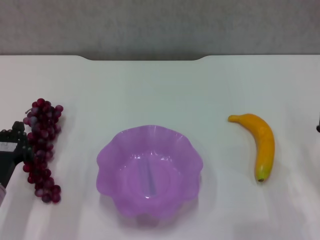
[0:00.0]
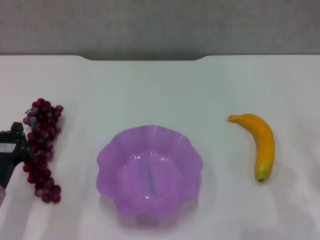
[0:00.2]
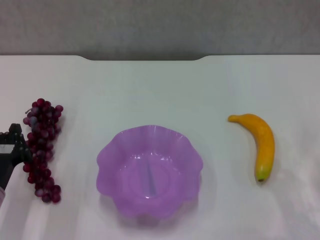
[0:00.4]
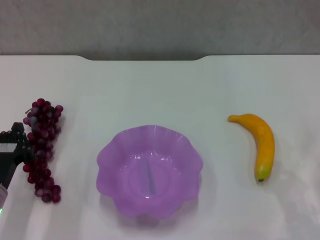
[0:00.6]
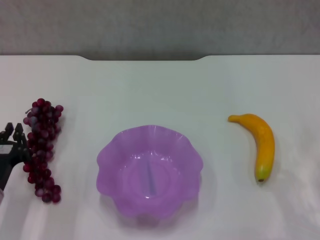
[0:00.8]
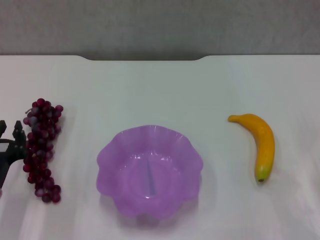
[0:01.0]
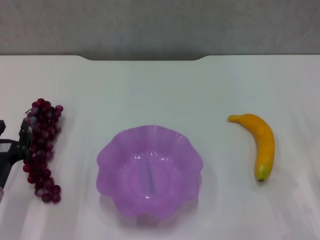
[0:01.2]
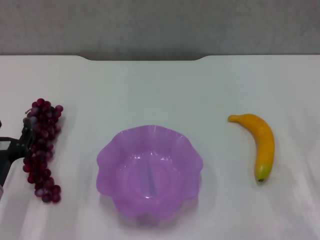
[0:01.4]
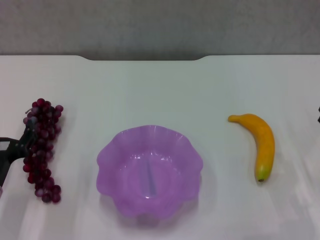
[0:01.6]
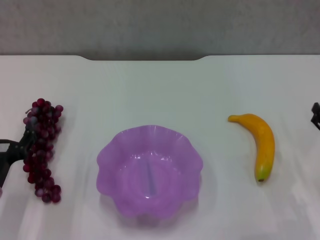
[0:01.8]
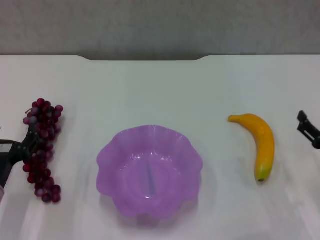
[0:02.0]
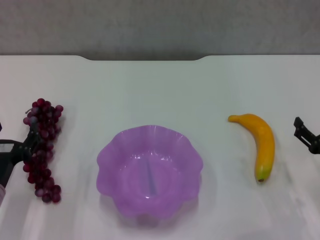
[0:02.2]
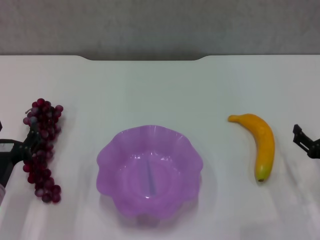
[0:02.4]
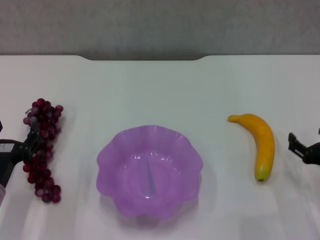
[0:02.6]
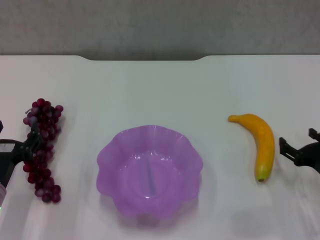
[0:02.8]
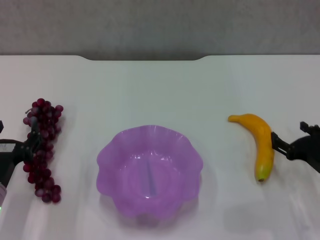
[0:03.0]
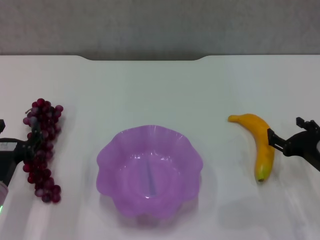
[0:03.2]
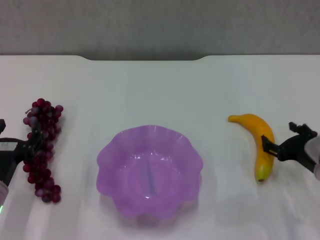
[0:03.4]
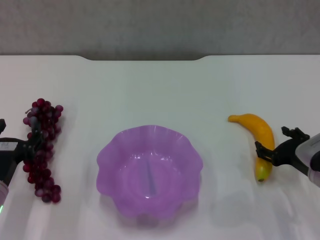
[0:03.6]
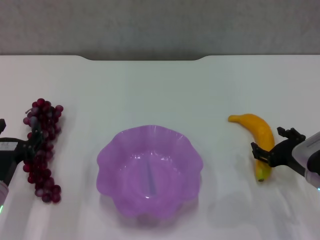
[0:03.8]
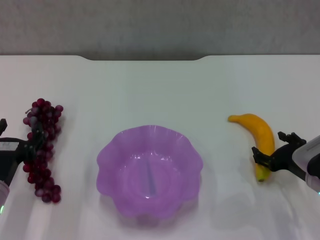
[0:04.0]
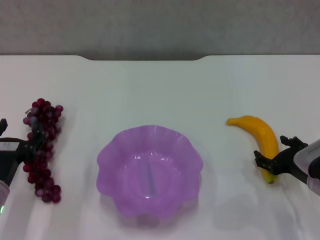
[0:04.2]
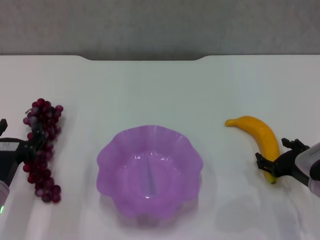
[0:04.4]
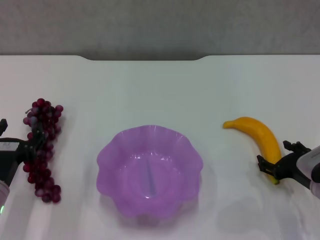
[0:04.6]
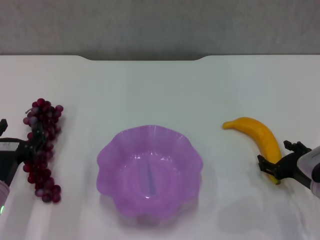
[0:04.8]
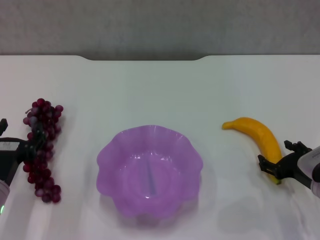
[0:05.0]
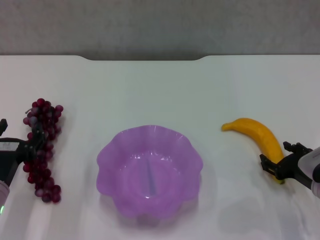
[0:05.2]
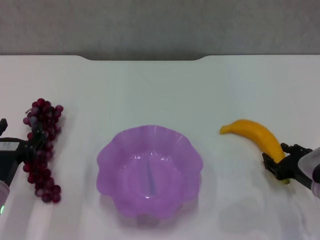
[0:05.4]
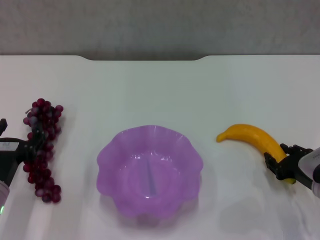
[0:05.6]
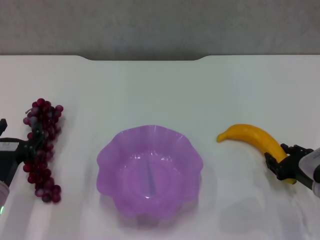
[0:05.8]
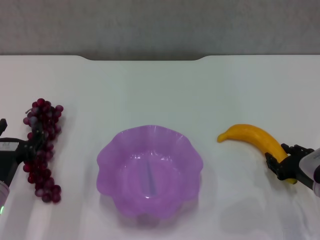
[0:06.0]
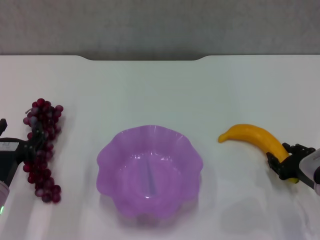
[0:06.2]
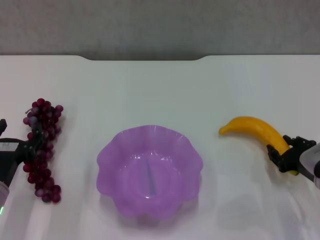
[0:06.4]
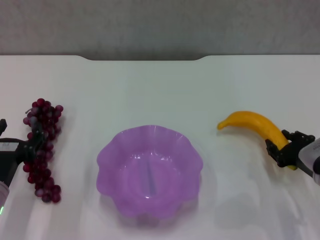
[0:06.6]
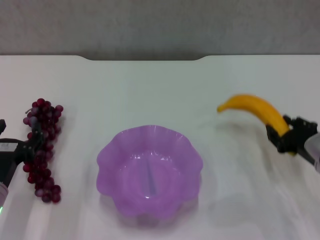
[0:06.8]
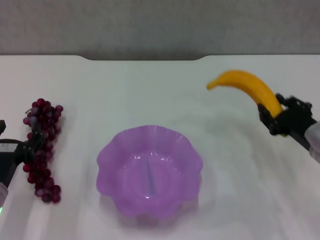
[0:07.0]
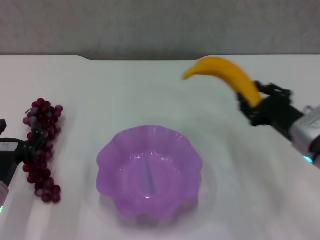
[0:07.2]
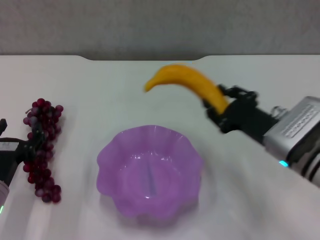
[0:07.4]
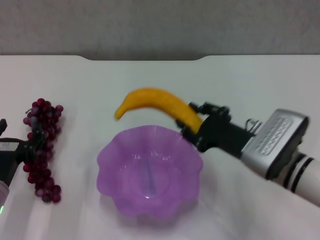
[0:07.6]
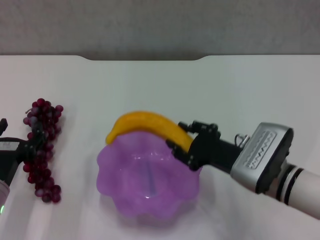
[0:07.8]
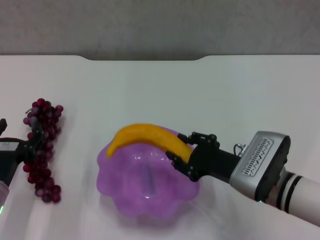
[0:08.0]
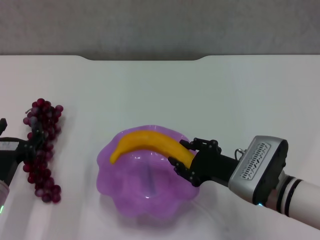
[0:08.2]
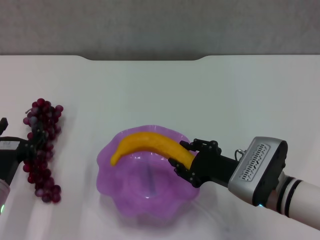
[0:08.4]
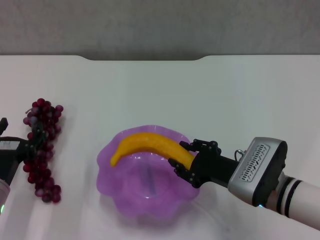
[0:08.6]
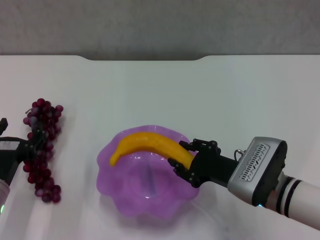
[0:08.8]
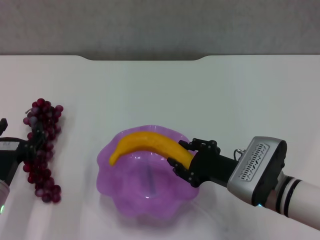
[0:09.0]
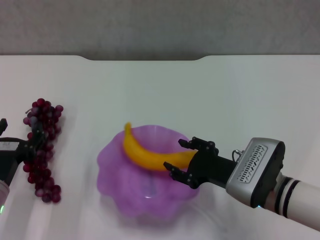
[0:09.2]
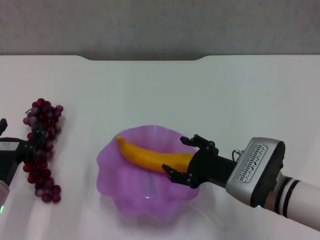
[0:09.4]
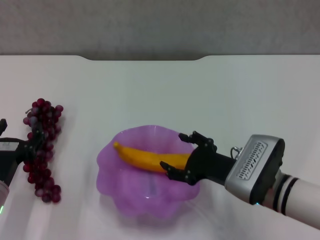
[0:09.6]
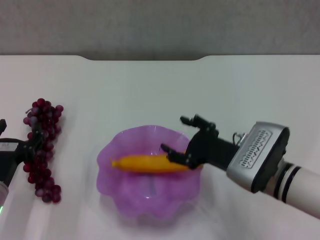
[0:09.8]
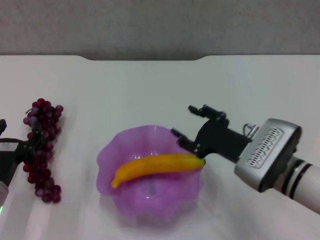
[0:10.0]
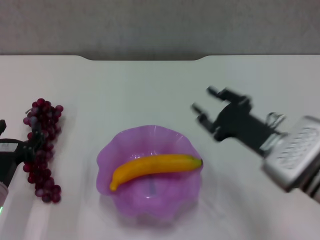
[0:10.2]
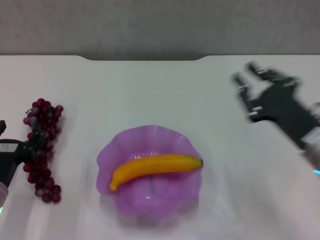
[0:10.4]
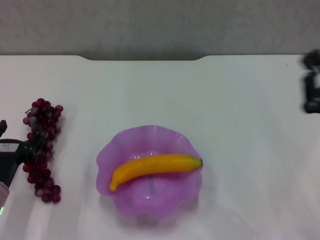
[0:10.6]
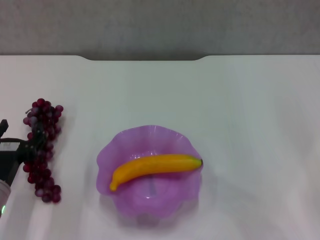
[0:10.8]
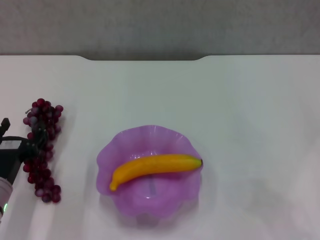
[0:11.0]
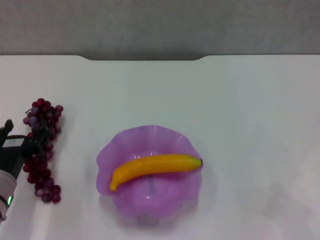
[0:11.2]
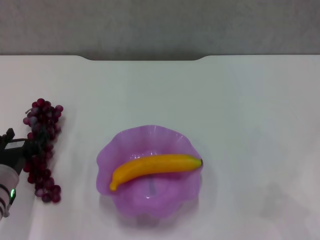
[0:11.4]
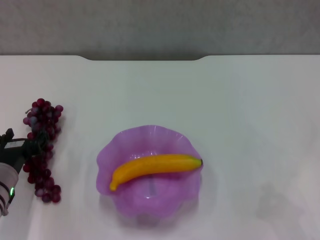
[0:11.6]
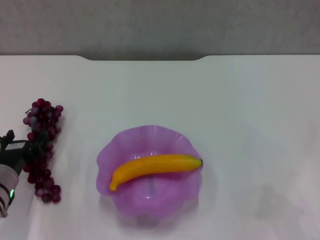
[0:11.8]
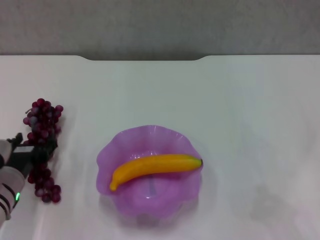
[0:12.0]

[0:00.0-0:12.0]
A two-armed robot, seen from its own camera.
Step, 0:00.0 to 0:05.8: Grasp the banana with right gripper.
Step, 0:06.0 to 0:09.8: Place the banana in the purple plate with right gripper.
0:00.0 to 0:01.6: The left gripper opens up.
0:01.6 to 0:03.0: The right gripper moves roughly 5 cm, and opens its fingers.
0:03.0 to 0:04.4: The grippers stay close to where they were, moving slightly.
0:04.4 to 0:06.0: The right gripper closes its fingers.
0:06.0 to 0:07.6: The right gripper goes roughly 15 cm to the left and upward.
0:07.6 to 0:09.0: The grippers make only small movements.
0:09.0 to 0:10.4: The right gripper shifts some 10 cm to the right and upward, and opens and closes again.
0:10.4 to 0:12.0: The right gripper is displaced to the right and backward by roughly 15 cm, and closes its fingers.

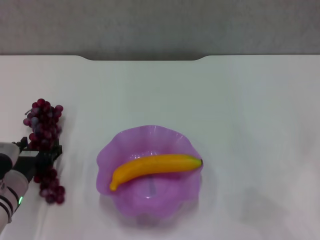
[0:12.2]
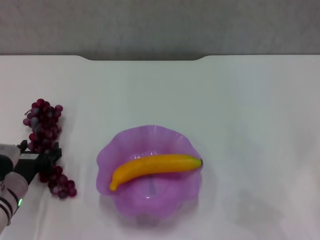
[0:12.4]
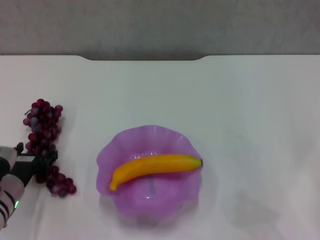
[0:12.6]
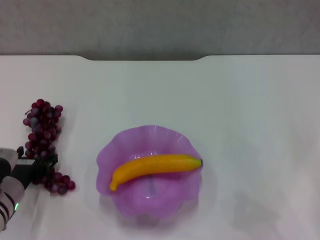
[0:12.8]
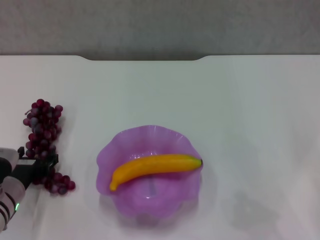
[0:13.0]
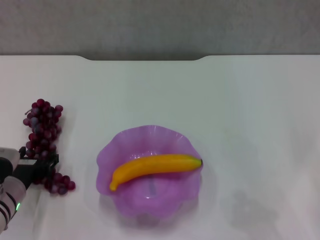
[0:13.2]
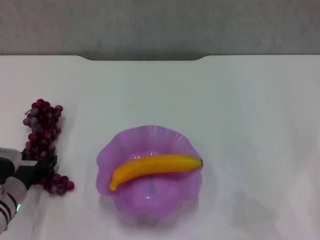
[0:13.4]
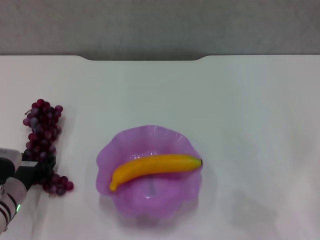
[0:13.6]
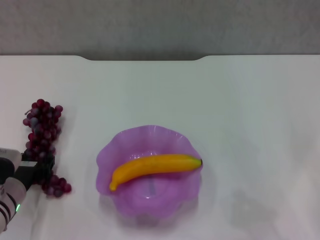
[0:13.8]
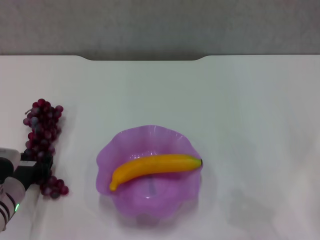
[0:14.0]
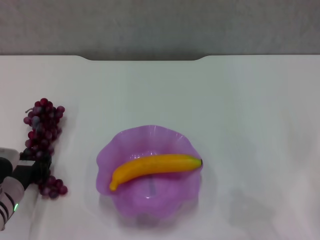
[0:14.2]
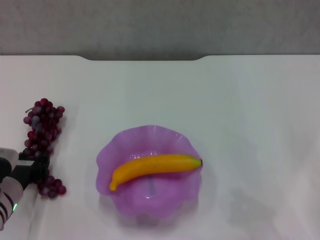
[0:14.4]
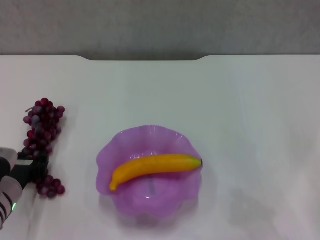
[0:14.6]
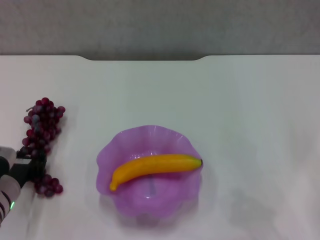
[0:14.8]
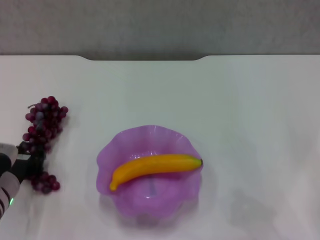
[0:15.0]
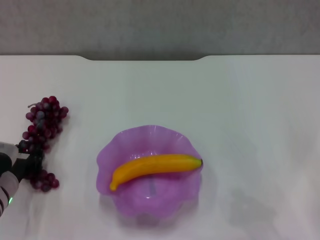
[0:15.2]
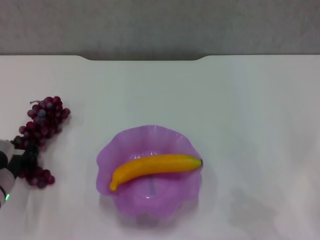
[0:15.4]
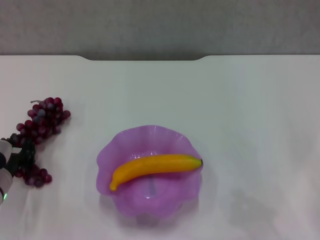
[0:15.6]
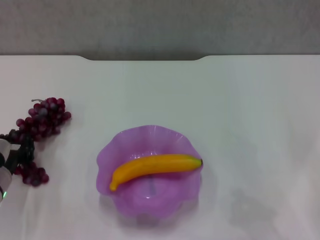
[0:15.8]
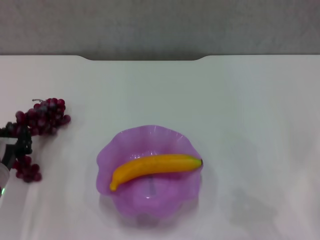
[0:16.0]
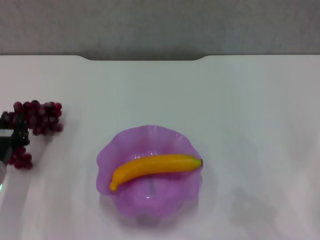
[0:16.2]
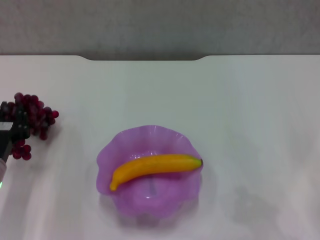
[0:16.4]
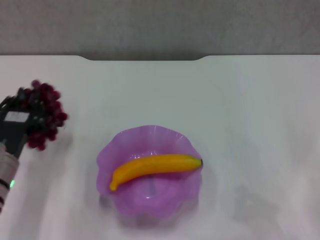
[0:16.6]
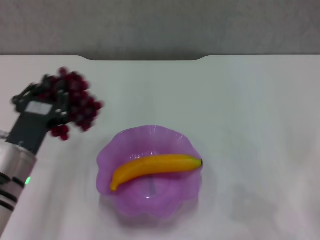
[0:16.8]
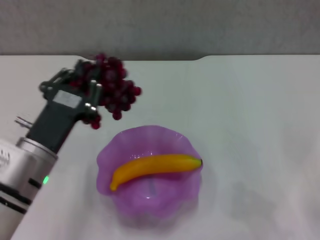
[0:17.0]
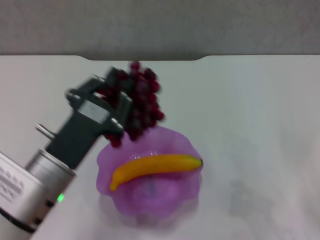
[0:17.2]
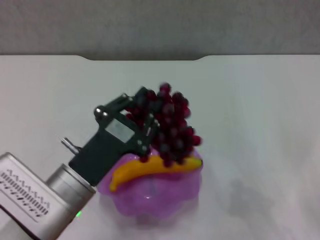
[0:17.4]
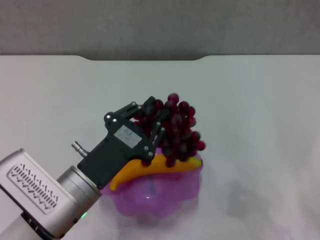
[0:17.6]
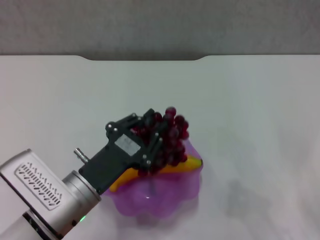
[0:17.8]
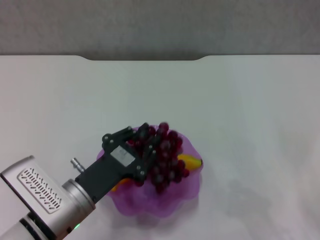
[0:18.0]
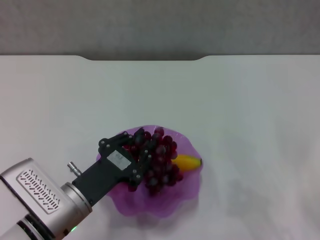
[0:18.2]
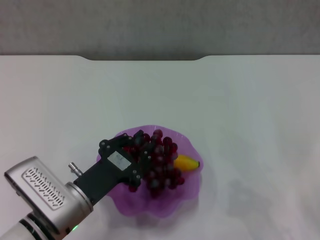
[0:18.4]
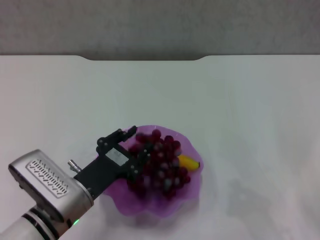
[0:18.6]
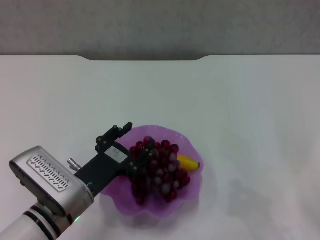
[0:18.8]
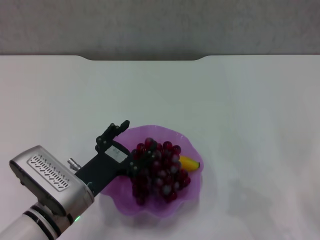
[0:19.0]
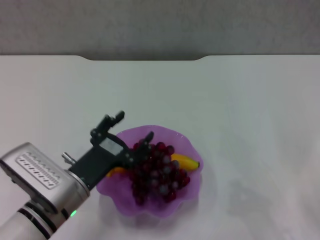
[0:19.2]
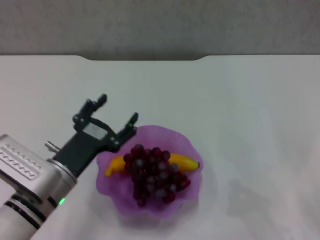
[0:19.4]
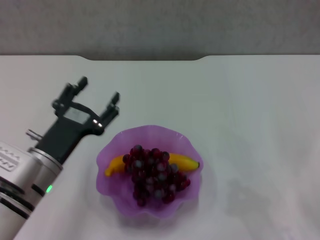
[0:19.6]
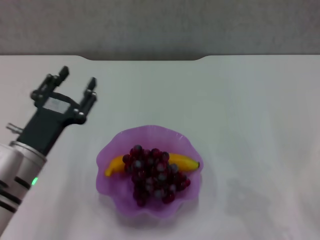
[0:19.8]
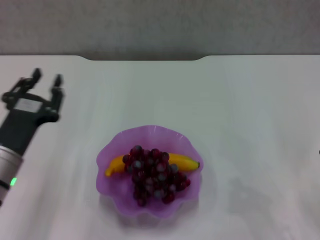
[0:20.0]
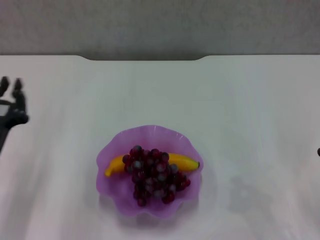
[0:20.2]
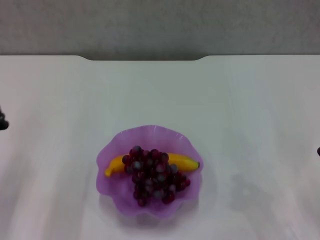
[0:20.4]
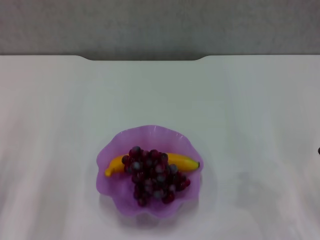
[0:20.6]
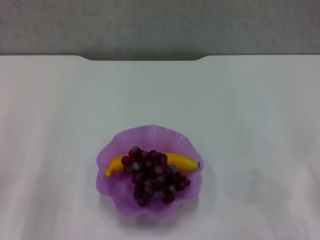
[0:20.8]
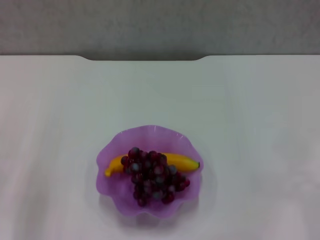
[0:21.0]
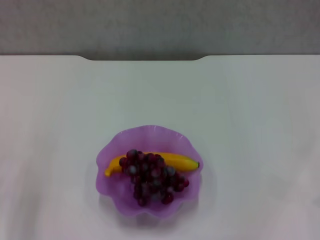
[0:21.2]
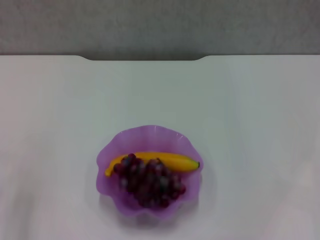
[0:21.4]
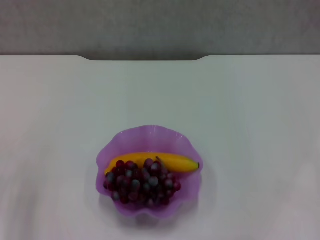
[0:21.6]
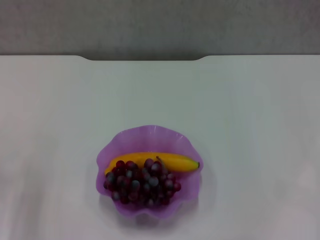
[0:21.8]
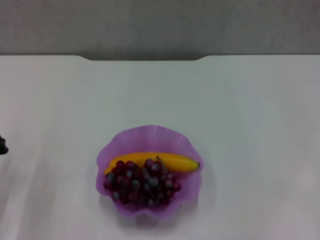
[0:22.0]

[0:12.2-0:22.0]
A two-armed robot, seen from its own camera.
Step, 0:12.2 to 0:14.8: Grasp the grape with left gripper.
Step, 0:15.0 to 0:19.4: Place the grape in the purple plate with left gripper.
0:12.2 to 0:13.6: The grippers make only small movements.
0:13.6 to 0:15.0: The two grippers keep their place.
0:16.4 to 0:17.8: The left gripper moves to the right, some 15 cm.
0:17.8 to 0:19.2: The left gripper opens up.
0:19.2 to 0:20.6: The left gripper moves to the left, some 15 cm, and closes up.
0:20.6 to 0:22.0: The right gripper travels to the right by approximately 10 cm.
